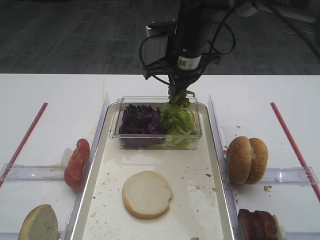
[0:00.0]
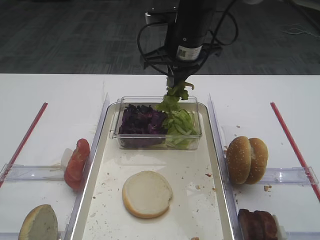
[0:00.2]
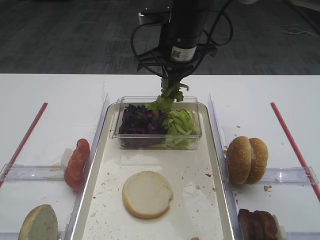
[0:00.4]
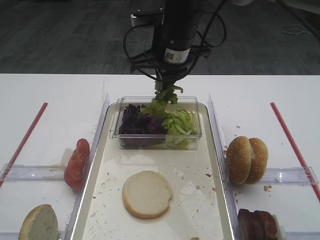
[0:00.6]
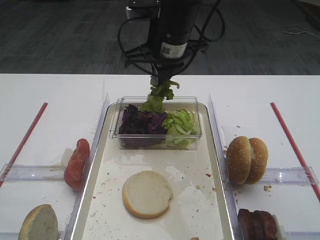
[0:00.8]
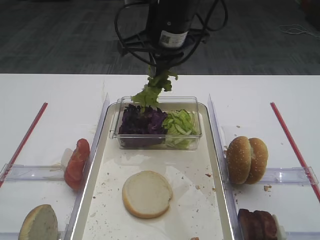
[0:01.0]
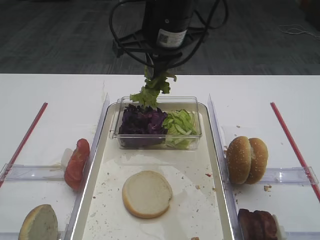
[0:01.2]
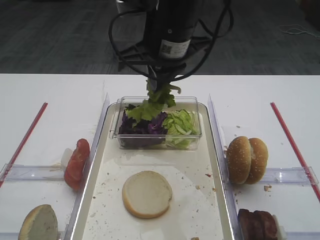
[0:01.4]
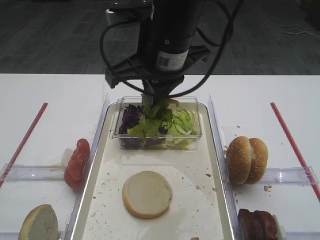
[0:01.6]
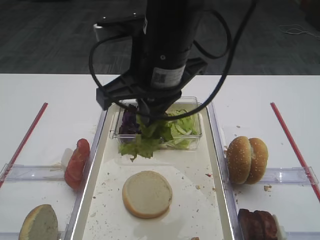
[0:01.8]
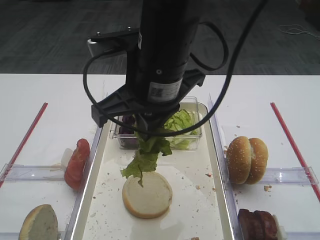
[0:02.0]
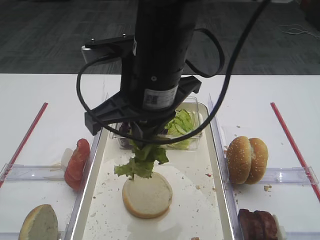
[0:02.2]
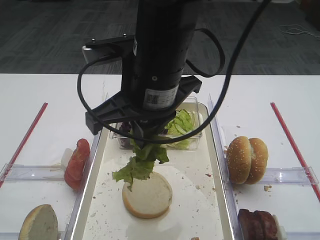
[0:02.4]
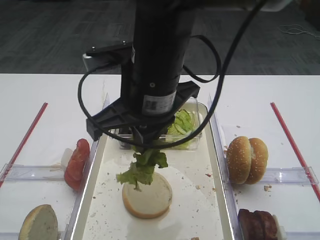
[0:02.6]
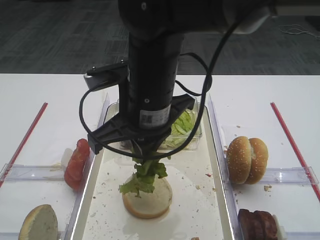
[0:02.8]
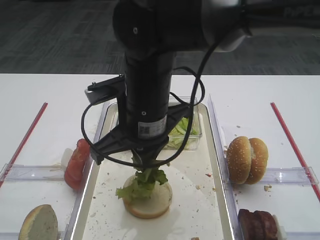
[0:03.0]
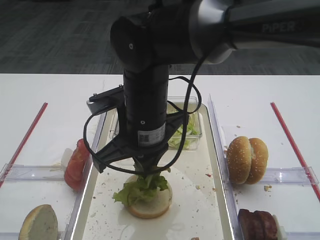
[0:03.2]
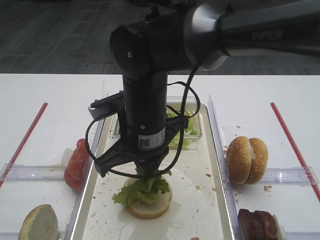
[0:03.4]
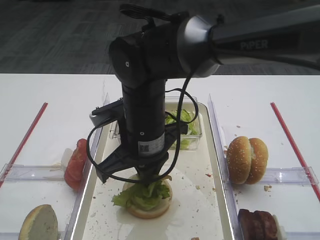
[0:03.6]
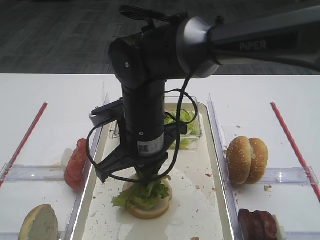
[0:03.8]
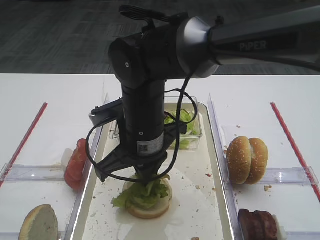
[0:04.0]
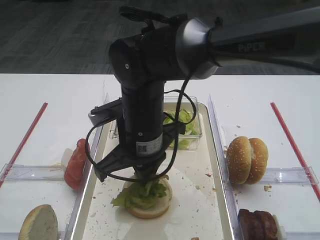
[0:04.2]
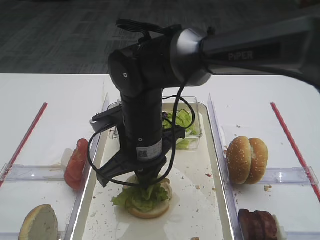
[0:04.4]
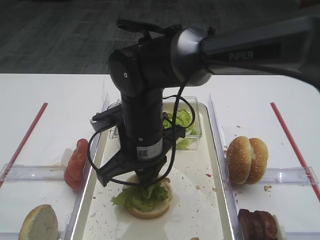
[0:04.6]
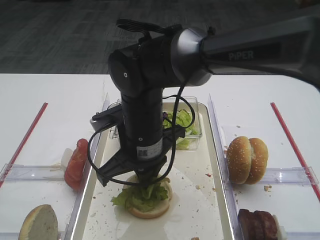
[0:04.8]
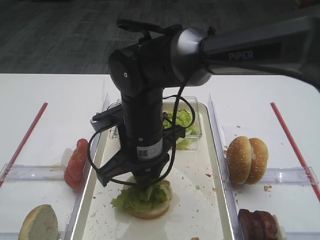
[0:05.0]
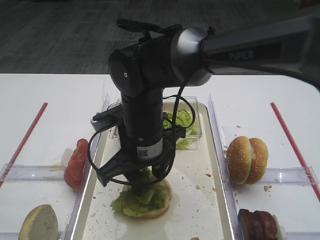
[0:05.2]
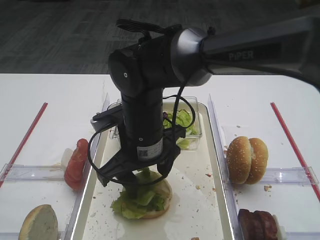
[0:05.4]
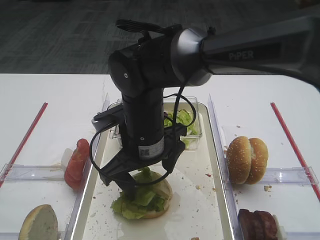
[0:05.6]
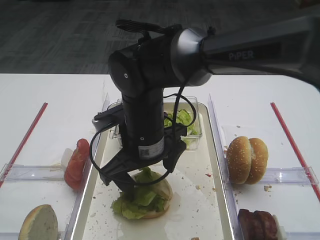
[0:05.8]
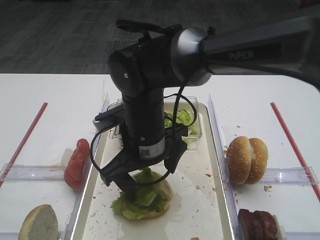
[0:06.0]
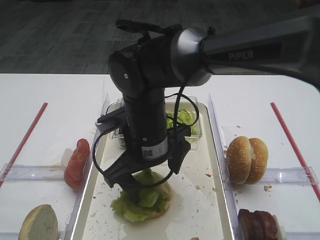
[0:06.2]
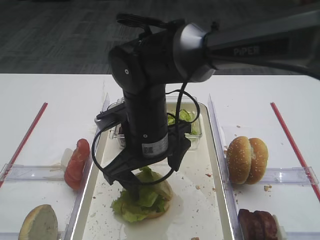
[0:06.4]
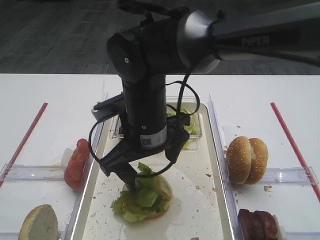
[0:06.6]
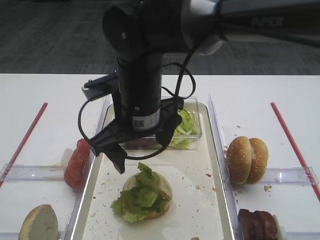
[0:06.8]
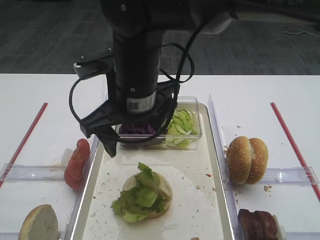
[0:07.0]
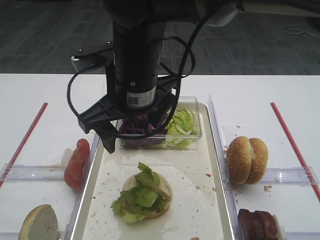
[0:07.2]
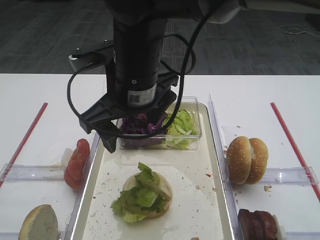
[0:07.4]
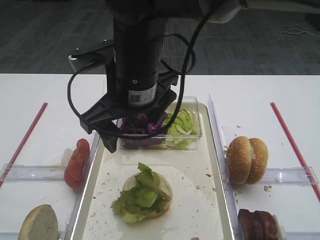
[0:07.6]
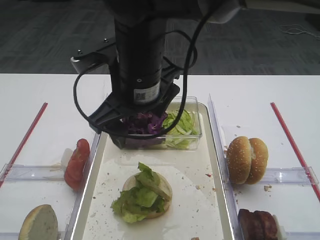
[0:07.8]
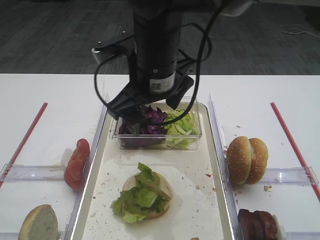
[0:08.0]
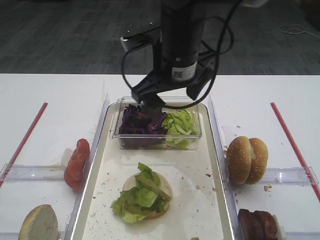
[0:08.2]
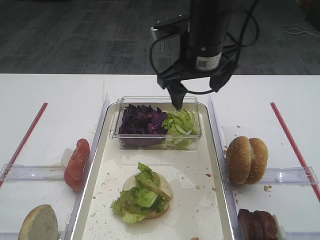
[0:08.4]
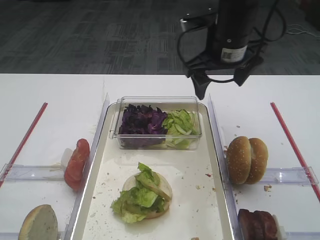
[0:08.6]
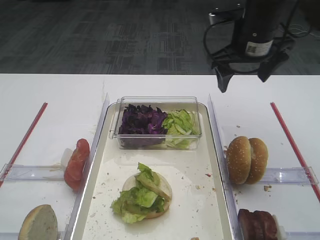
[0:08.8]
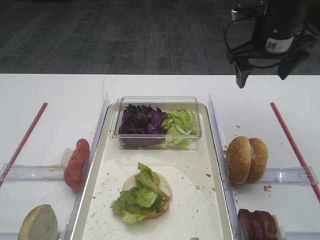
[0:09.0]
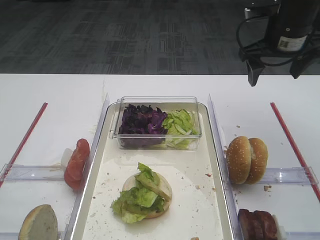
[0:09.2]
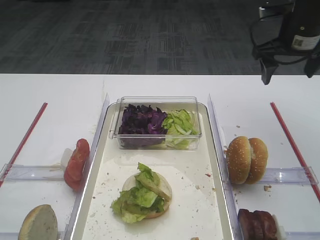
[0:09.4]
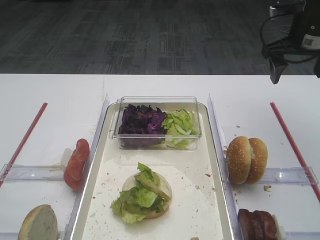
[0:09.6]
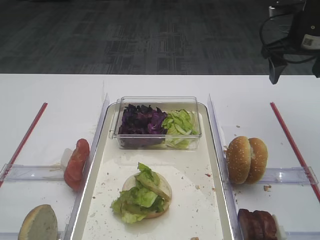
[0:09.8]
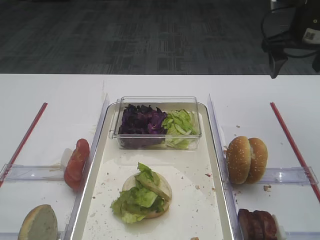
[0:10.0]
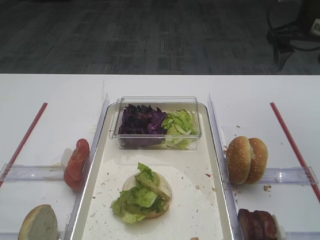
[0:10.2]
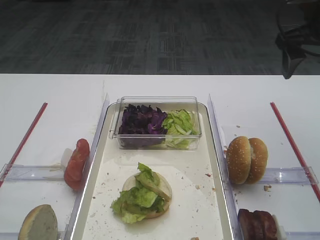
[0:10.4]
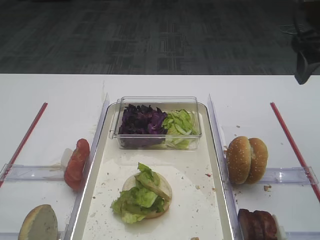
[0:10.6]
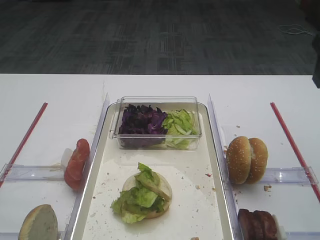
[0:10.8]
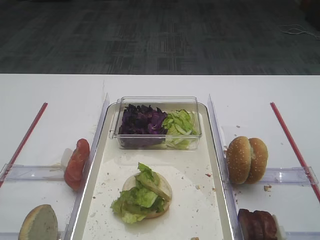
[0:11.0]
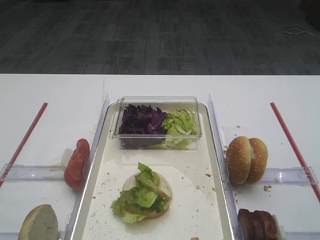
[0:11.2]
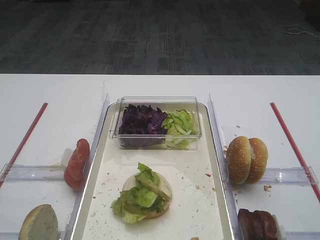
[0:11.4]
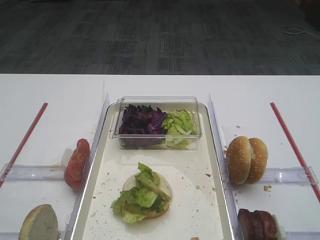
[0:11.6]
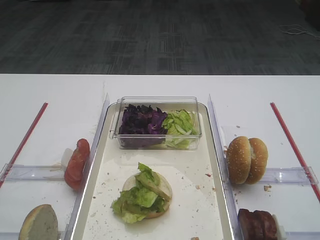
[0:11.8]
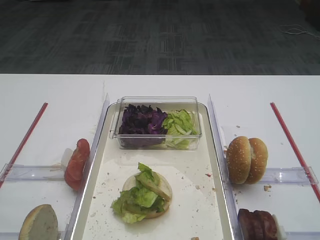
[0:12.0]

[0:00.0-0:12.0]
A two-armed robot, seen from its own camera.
Step, 0:00.2 to 0:06.6: Place the lettuce leaf on the bread slice with the right gripper.
0:00.0 to 0:01.6: The right gripper travels backward and upward by some 15 cm.
0:01.6 to 0:03.0: The right gripper heads downward, covering some 5 cm.
0:03.0 to 0:04.4: The right gripper is displaced downward by roughly 5 cm.
0:04.4 to 0:06.0: The right gripper opens up.
0:06.0 to 0:07.6: The right gripper is displaced upward by about 10 cm.
0:07.6 to 0:09.0: The right gripper shifts roughly 25 cm to the right and forward.
0:09.0 to 0:10.4: The right gripper is displaced to the right by roughly 5 cm.
0:10.4 to 0:12.0: The right gripper is displaced backward by approximately 30 cm.

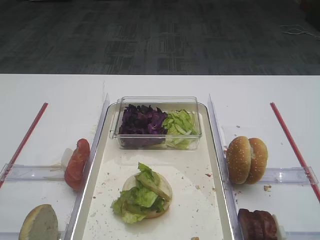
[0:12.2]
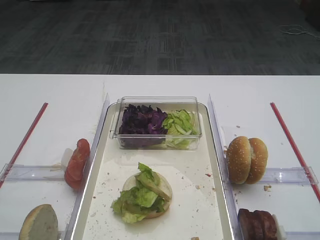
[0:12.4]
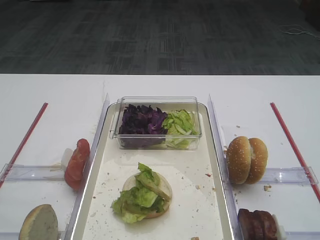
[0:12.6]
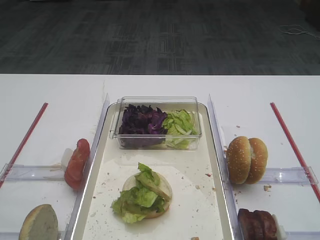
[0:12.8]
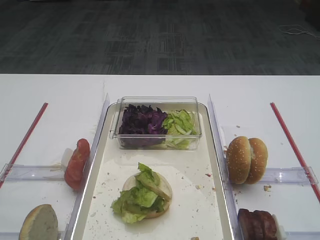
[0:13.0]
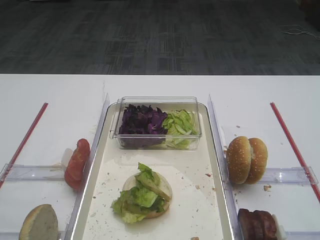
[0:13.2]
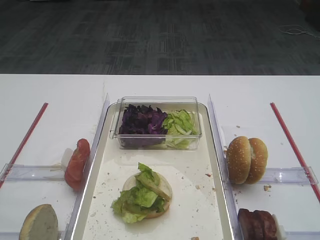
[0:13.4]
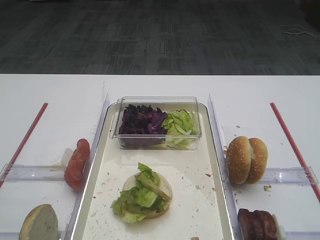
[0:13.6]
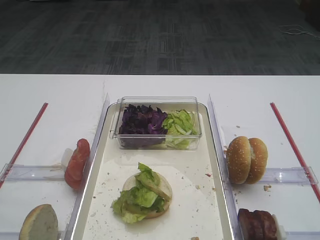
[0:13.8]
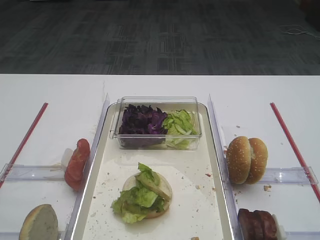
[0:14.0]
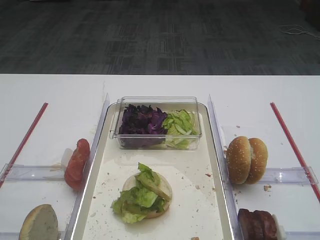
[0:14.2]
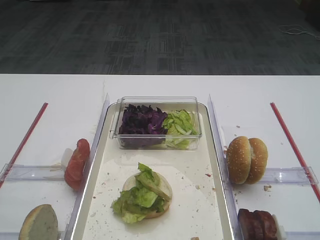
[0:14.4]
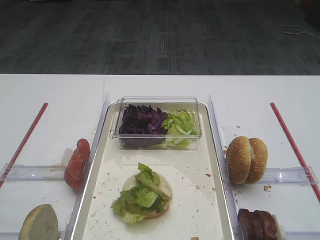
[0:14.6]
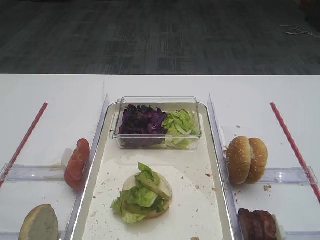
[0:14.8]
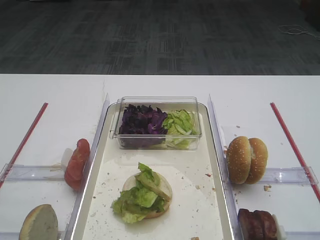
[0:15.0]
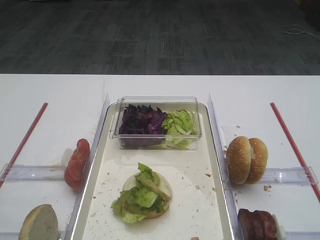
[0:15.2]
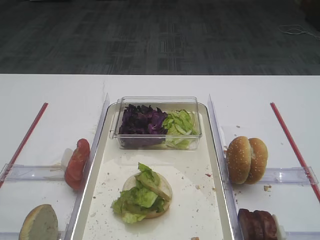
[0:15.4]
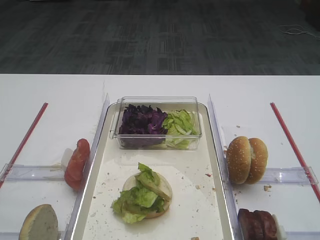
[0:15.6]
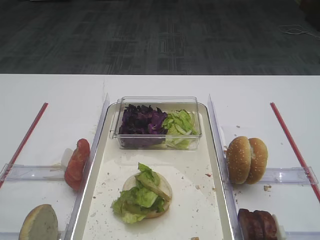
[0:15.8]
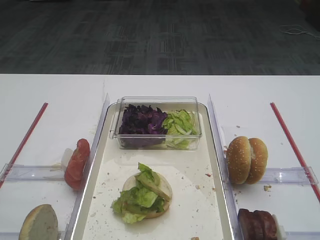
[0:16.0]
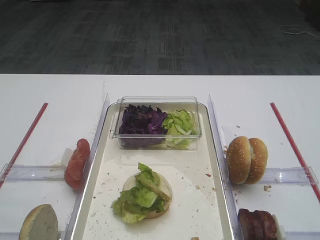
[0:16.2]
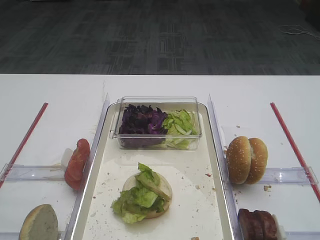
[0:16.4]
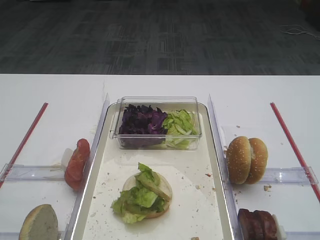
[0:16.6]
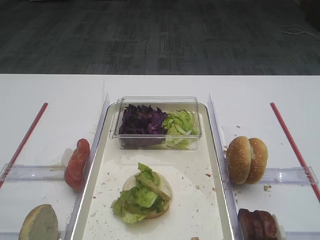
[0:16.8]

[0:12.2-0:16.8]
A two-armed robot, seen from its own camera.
0:13.8 to 0:16.8: Neither gripper changes place.

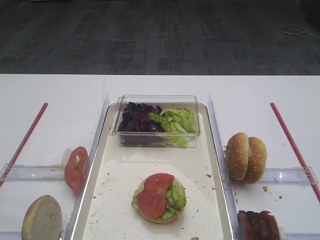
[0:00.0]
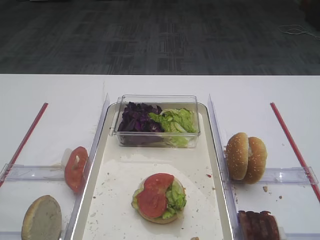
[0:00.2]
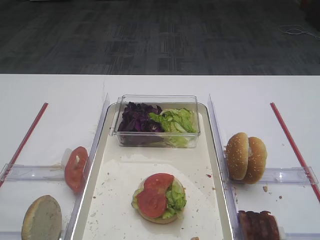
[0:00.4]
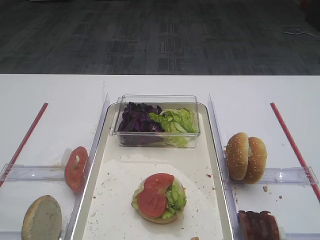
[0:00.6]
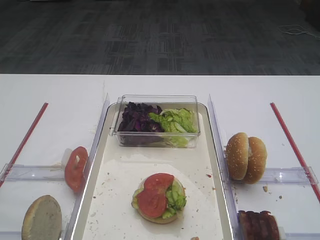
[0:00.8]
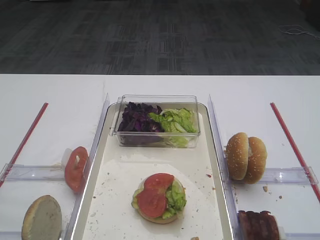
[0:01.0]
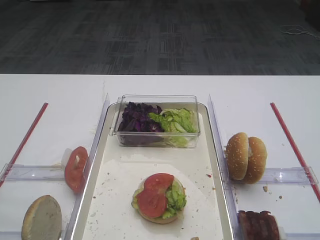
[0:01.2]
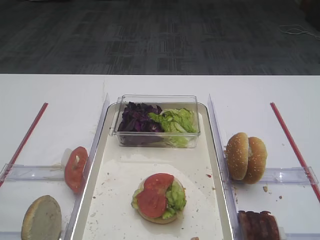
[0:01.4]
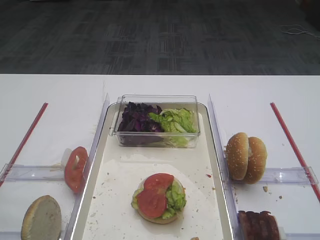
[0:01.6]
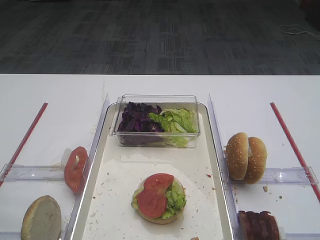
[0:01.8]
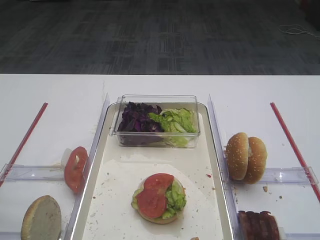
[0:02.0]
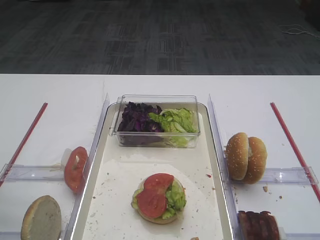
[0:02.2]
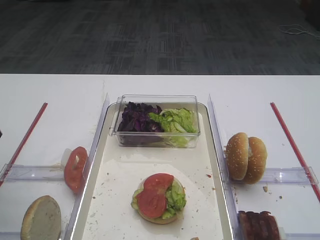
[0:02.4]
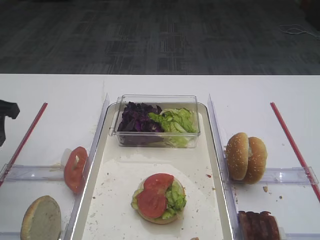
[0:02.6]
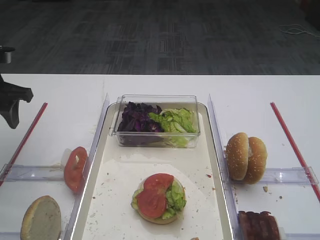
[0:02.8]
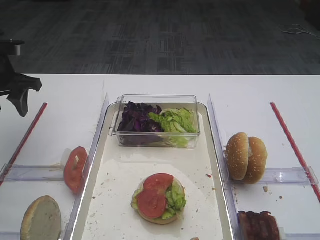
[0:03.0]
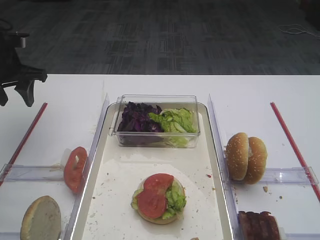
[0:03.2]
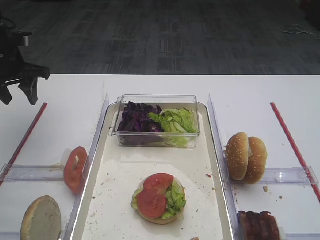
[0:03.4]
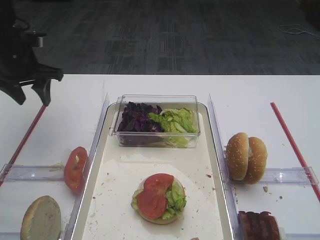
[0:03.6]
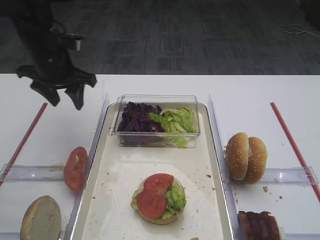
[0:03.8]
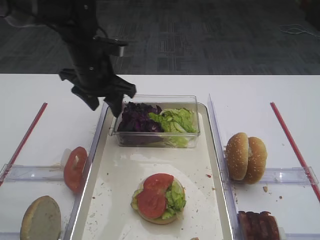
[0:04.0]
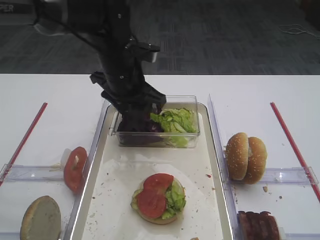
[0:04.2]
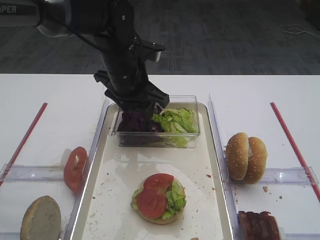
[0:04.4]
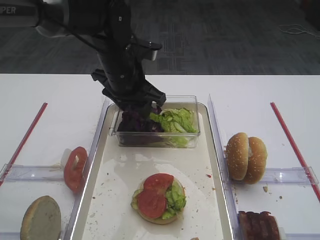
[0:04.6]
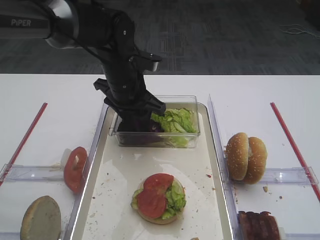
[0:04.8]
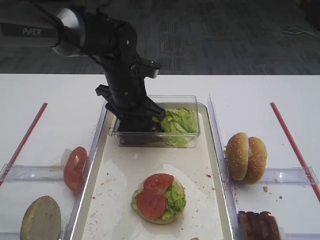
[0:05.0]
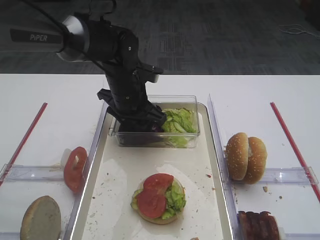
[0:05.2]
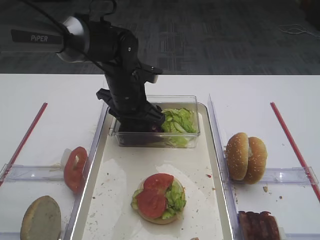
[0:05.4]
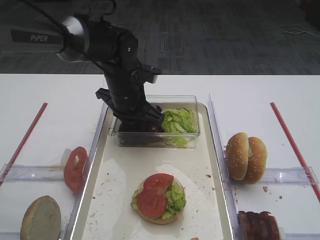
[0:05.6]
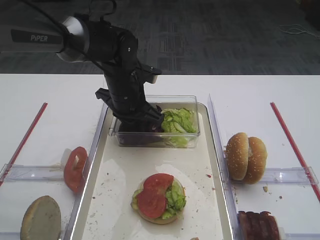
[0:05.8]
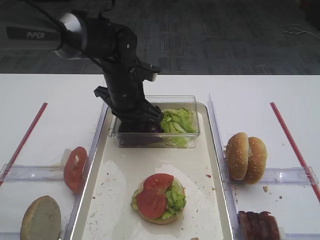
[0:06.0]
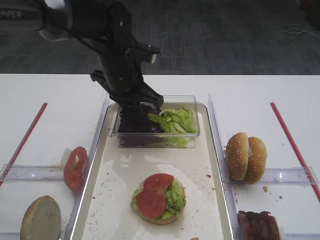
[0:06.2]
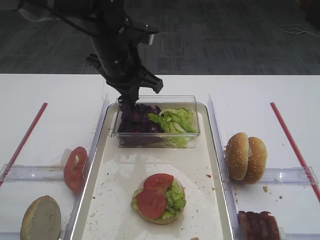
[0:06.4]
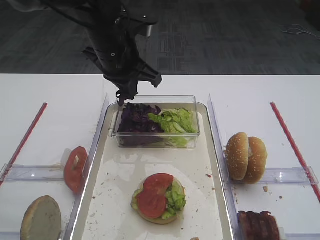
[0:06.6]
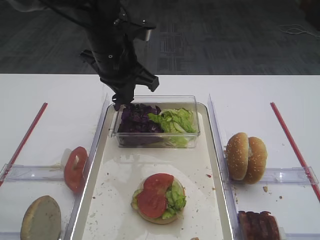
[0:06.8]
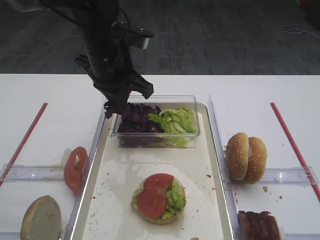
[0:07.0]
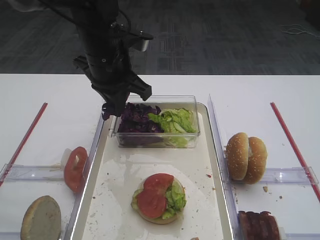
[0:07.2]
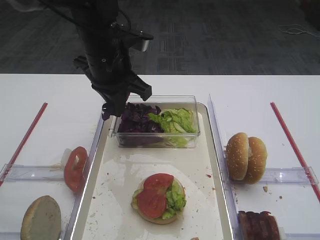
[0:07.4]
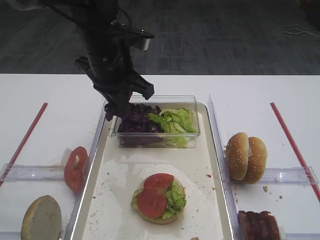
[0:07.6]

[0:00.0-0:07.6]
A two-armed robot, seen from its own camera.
Step, 0:00.0 to 0:06.4: Pick up the purple cabbage with the left gripper.
0:01.6 to 0:03.0: The left gripper shifts roughly 30 cm forward.
0:03.0 to 0:04.6: The left gripper goes some 25 cm to the right.
0:04.6 to 0:06.0: The left gripper closes.
0:06.0 to 0:07.6: The left gripper heads upward, covering approximately 10 cm.
